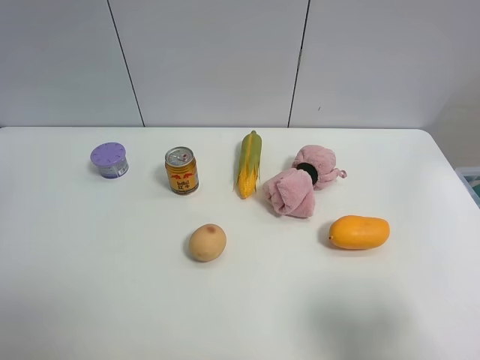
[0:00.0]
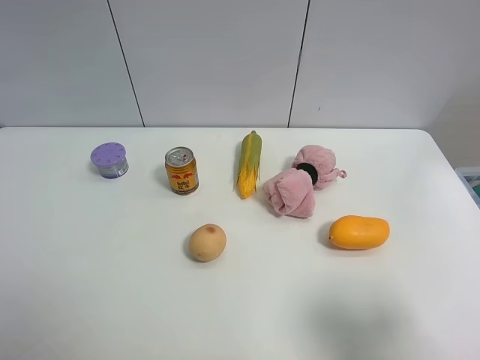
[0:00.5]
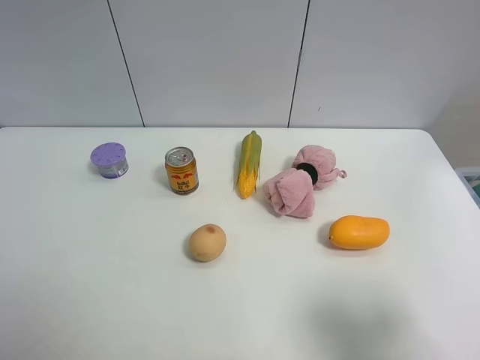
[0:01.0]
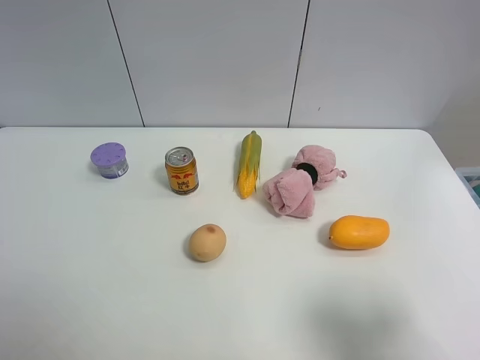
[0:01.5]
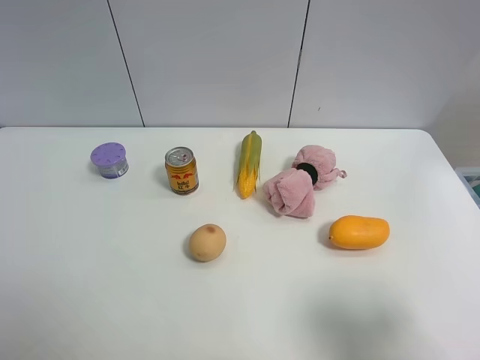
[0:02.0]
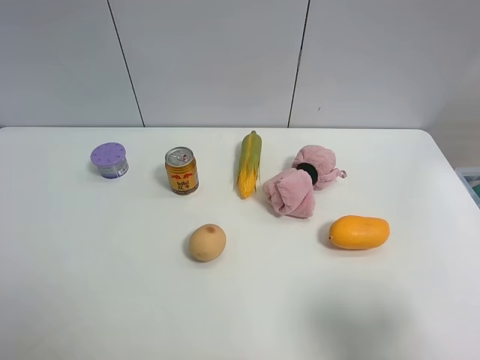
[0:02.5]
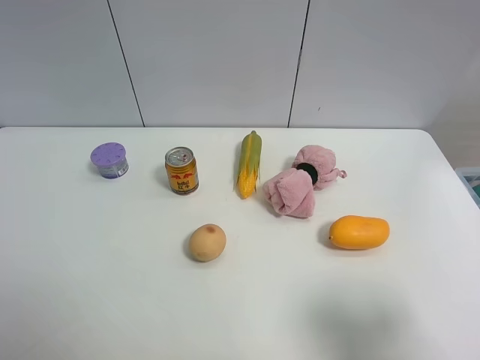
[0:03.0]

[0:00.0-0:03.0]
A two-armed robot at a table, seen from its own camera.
Task of the whole recording: the gripper move the object.
0:01.5 to 0:03.0: Both grippers stay about where they are.

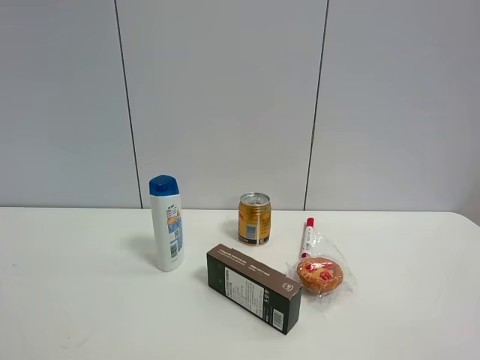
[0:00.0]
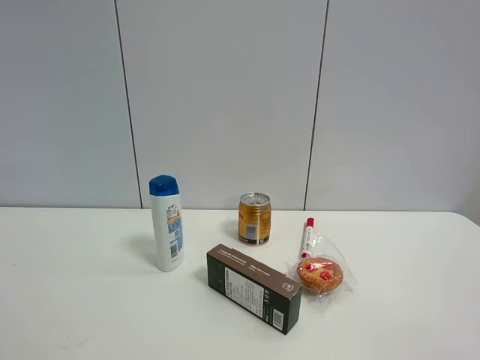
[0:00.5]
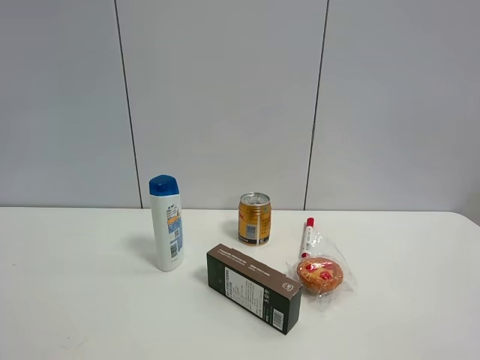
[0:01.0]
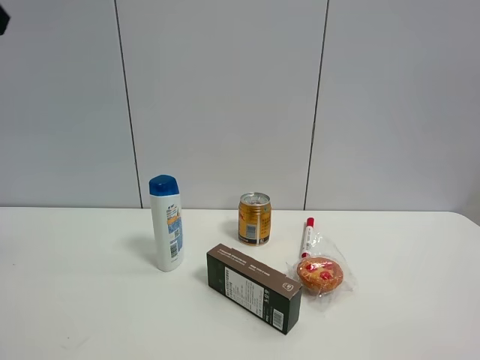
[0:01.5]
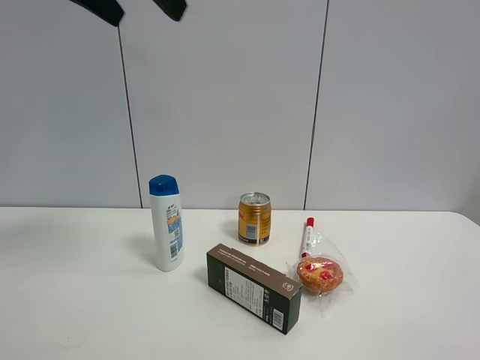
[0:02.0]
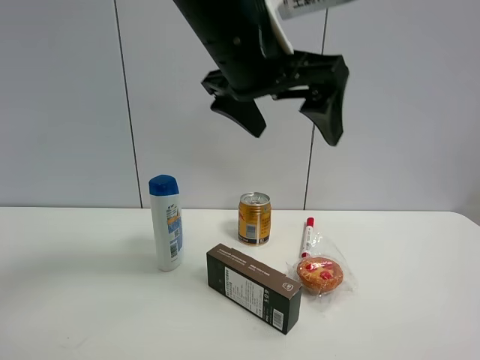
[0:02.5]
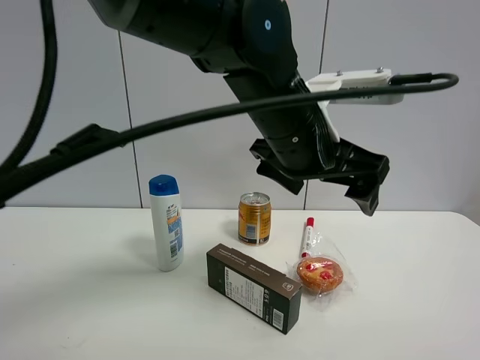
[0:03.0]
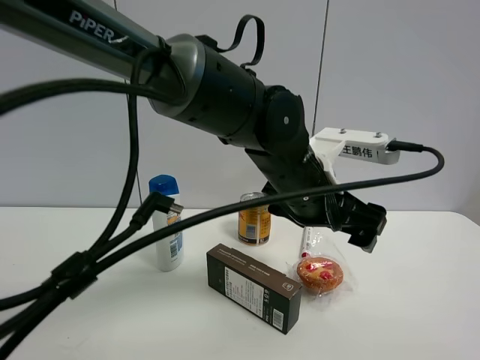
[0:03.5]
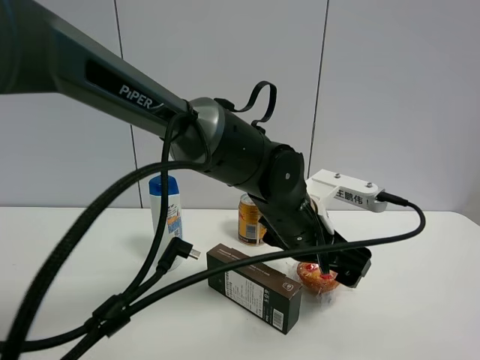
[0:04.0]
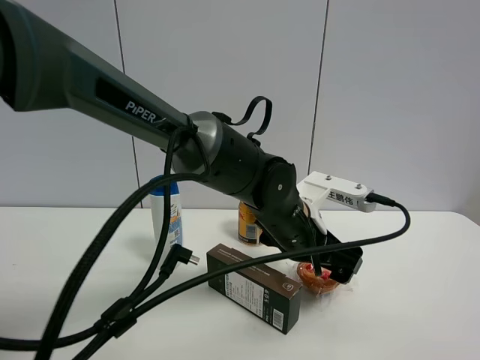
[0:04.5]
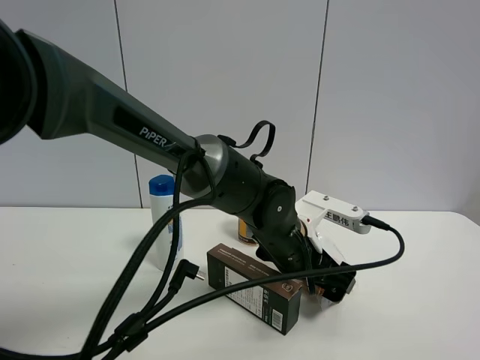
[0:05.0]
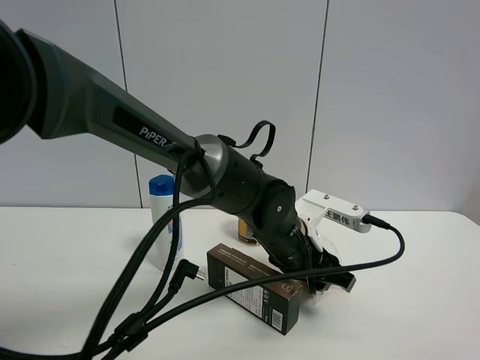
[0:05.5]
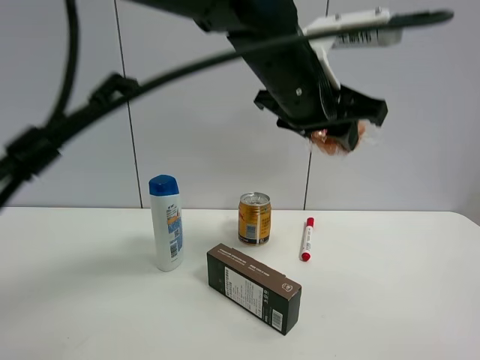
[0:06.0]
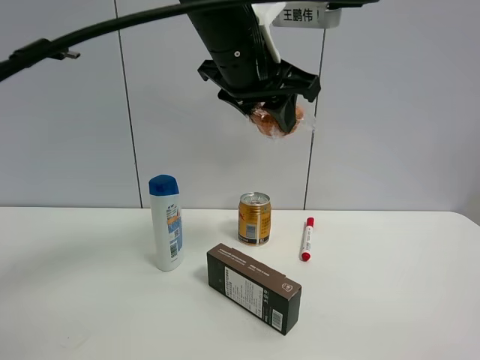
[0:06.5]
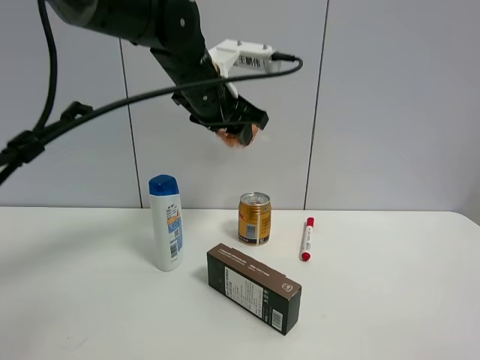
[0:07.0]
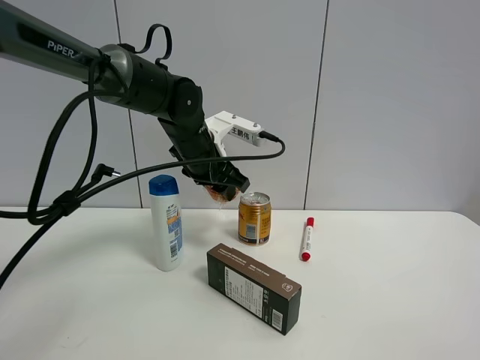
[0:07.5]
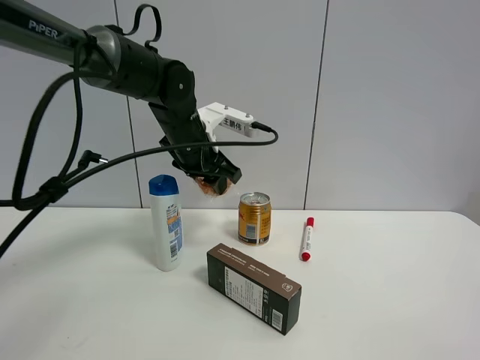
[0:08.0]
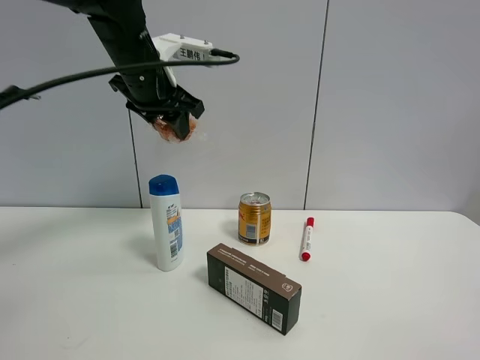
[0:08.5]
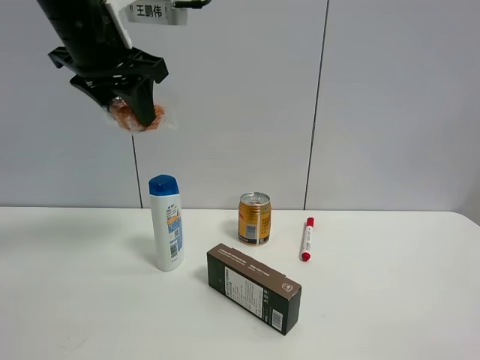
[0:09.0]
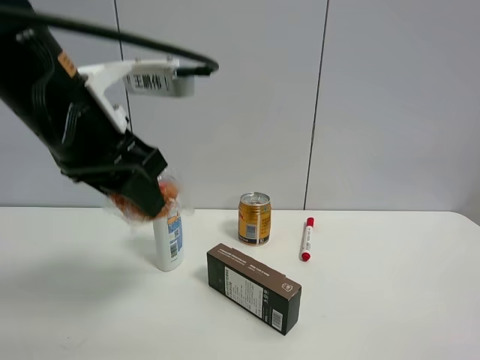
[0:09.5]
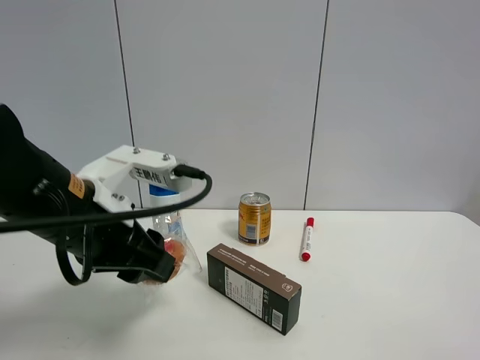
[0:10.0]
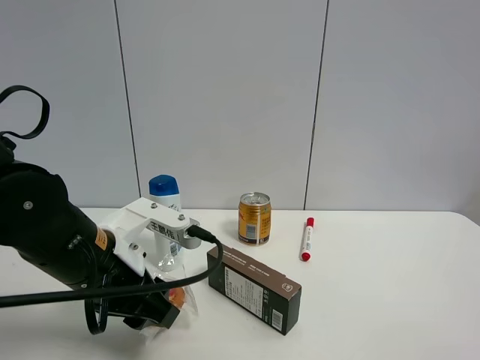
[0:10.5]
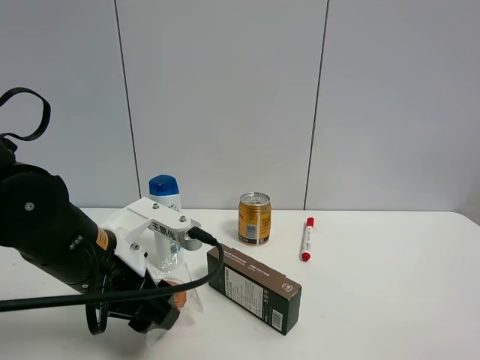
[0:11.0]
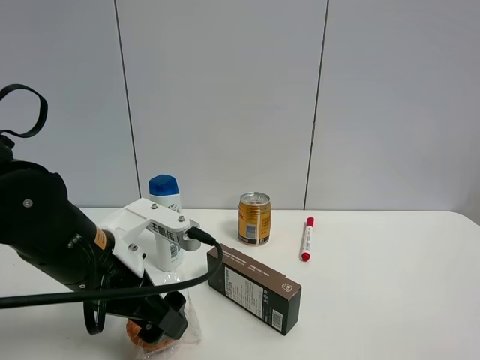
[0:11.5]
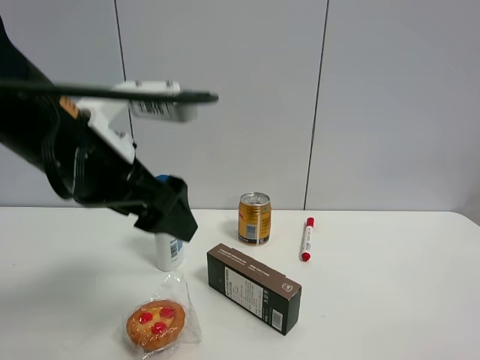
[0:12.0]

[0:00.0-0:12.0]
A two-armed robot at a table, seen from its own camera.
Task of the whole recording: the gripper move the object.
Step, 0:00.0 to 0:05.0: Grasp the egg tart with the left gripper.
Step, 0:05.5 to 0:11.5: Place the egg tart on the table with the left gripper.
0:00.0 to 0:02.0: The left gripper travels forward, to the right and upward by roughly 35 cm.
0:02.0 to 0:04.0: The left gripper heads downward and to the right, covering some 40 cm.
0:04.0 to 0:06.0: The left gripper goes some 20 cm upward, and closes.
0:06.0 to 0:08.0: The left gripper moves to the left, forward and downward, roughly 20 cm.
0:08.0 to 0:10.0: The left gripper heads backward, covering roughly 20 cm.
0:10.0 to 0:12.0: The left gripper is displaced upward by roughly 10 cm, and opens up.

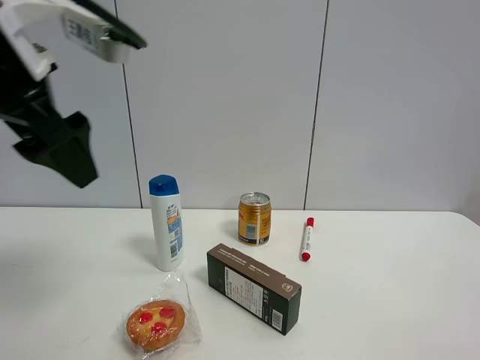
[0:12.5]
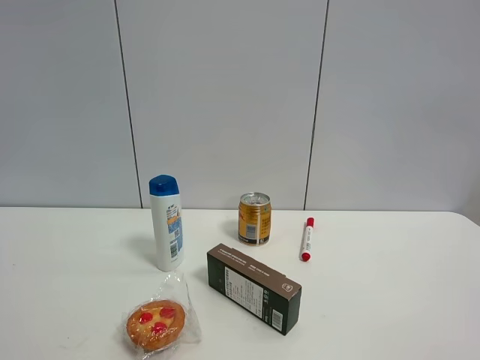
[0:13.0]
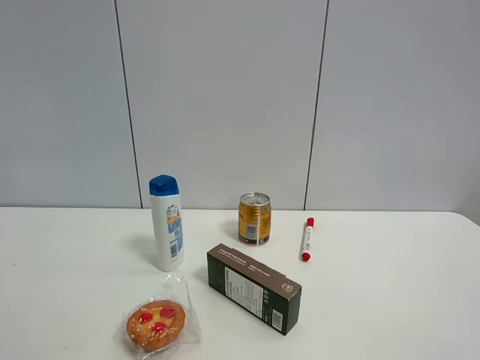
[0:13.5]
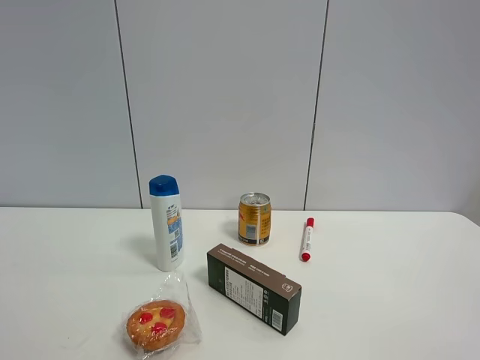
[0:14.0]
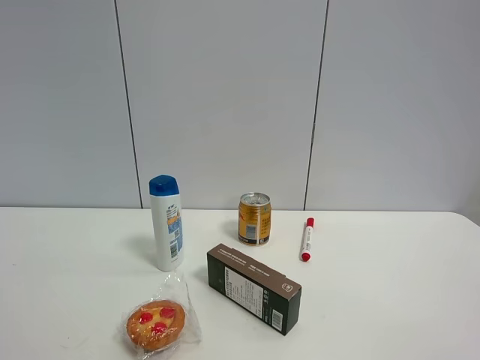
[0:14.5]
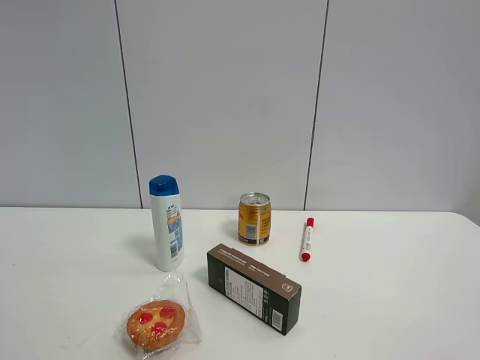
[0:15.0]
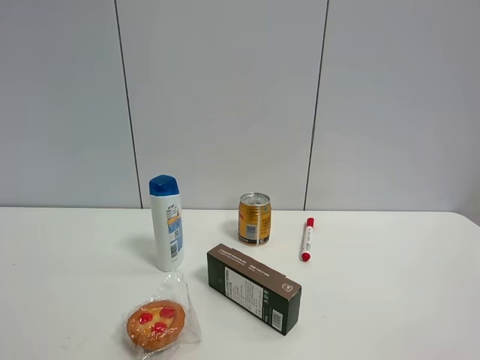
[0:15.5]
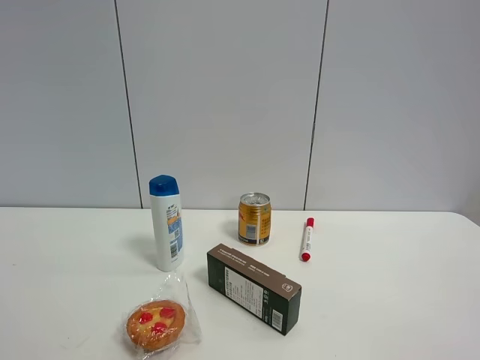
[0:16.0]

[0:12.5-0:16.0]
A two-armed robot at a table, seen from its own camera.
Task of the whole recording: the gripper move the object.
0:12.5 to 0:14.5: The left gripper moves backward and to the left, roughly 25 cm.

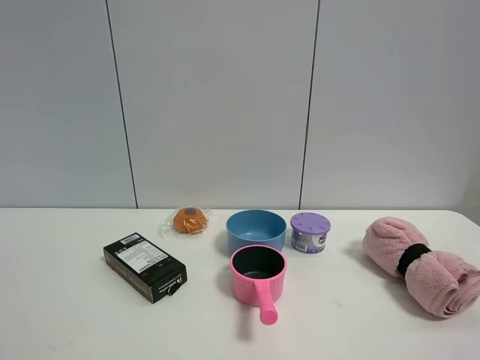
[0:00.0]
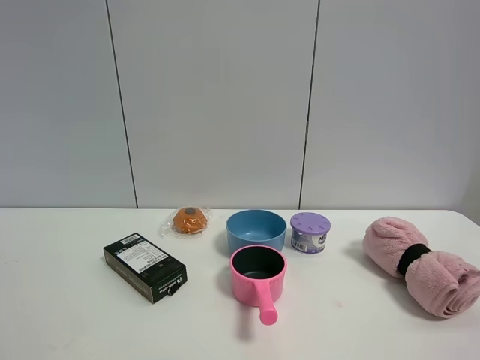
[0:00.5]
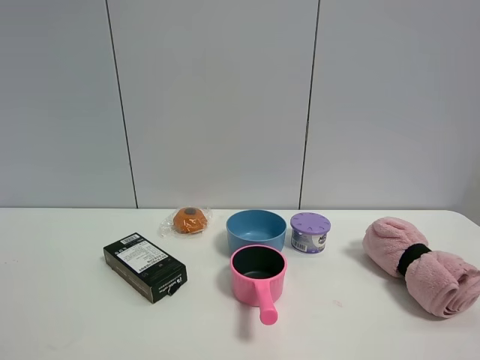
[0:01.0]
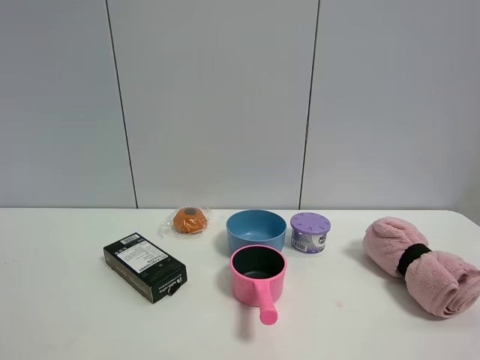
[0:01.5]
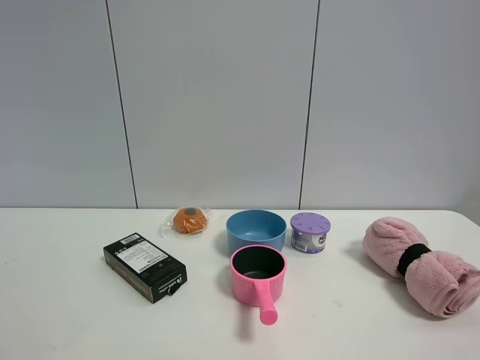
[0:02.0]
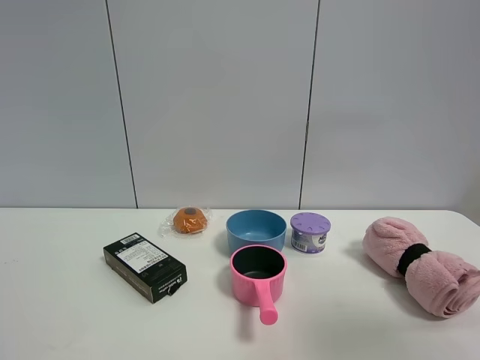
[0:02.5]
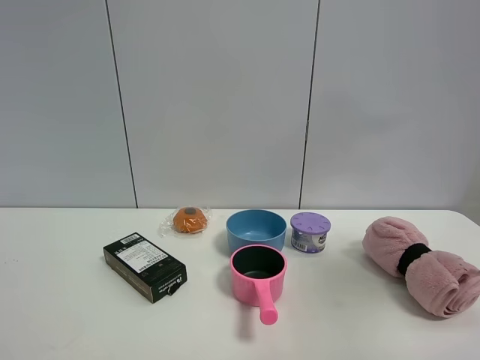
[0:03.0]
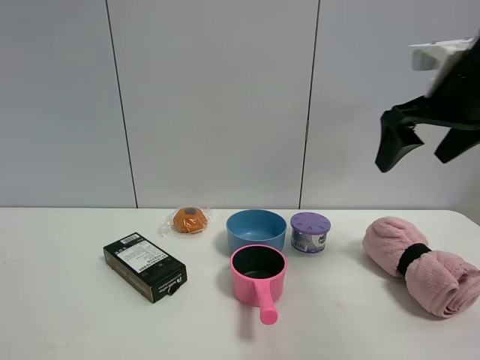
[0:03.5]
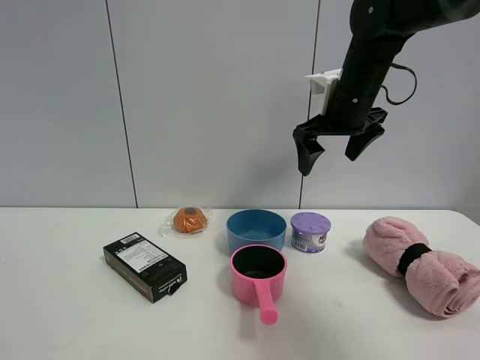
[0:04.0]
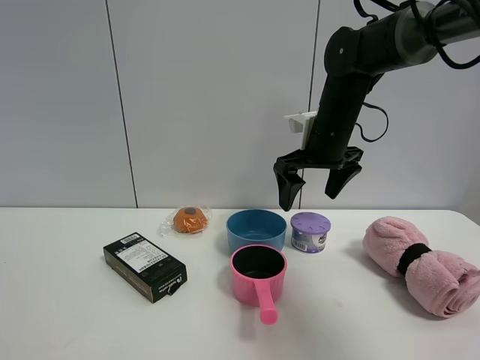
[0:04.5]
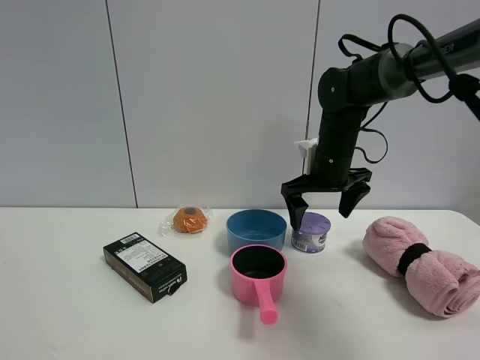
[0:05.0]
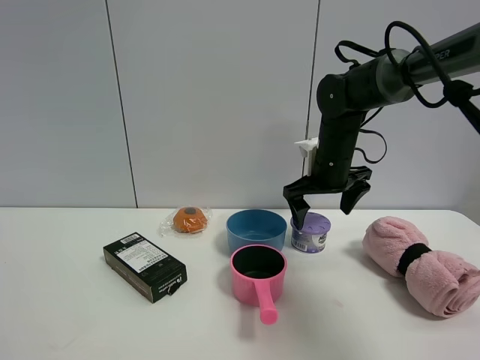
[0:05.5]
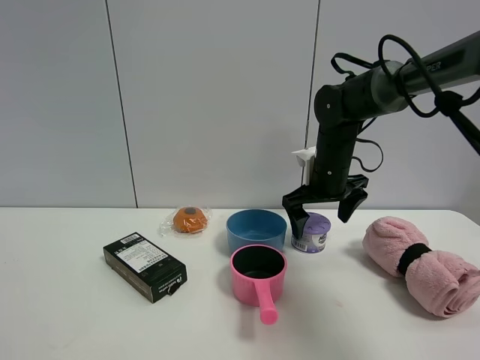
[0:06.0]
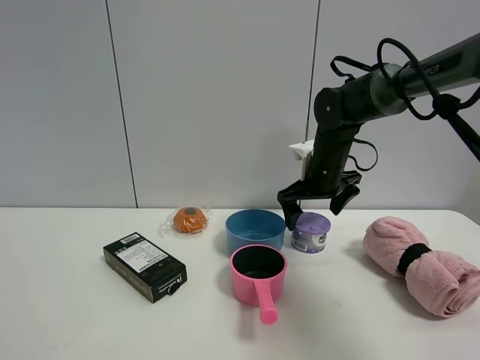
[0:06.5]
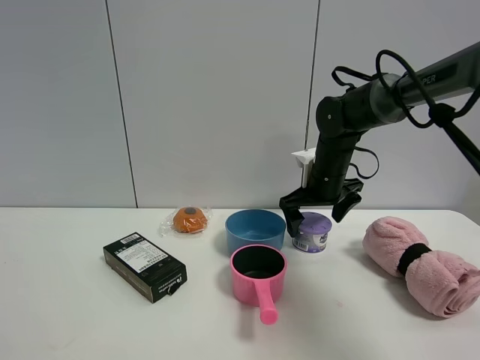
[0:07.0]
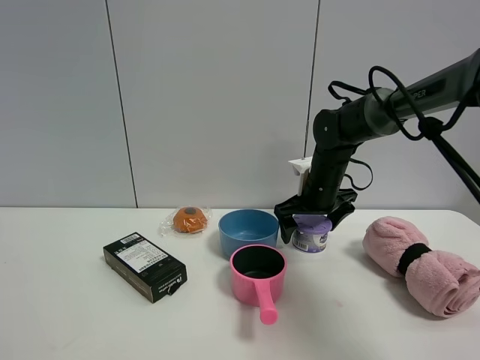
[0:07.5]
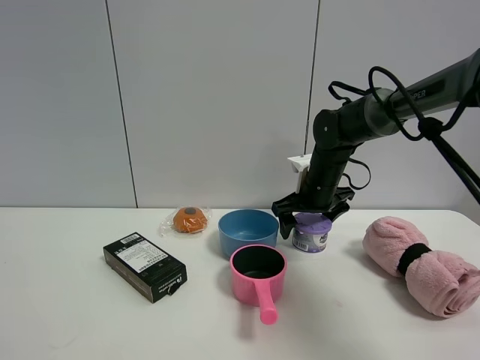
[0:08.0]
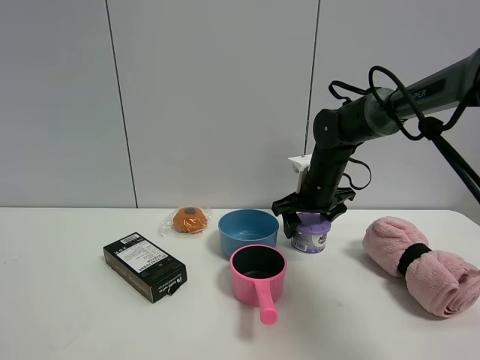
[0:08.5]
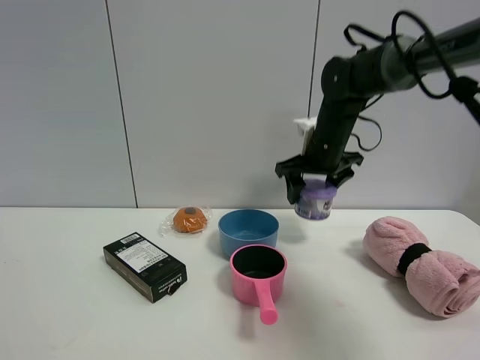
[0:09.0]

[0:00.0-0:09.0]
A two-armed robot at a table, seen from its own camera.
Task of the whole recording: the gripper move the object.
Step, 0:00.0 to 0:08.0: Grasp the Incense box with the right gripper.
0:00.0 to 0:02.0: Both grippers stay put.
0:02.0 to 0:04.5: The right gripper moves forward, some 40 cm.
0:04.5 to 0:07.0: The right gripper travels downward by approximately 10 cm.
0:07.0 to 0:09.0: The right gripper moves upward, approximately 10 cm, and closes up.
